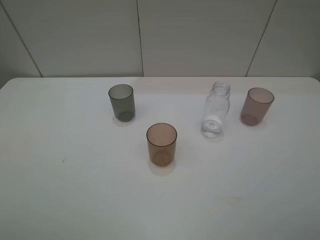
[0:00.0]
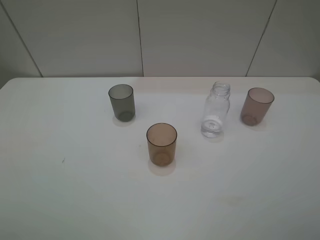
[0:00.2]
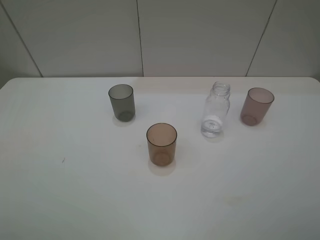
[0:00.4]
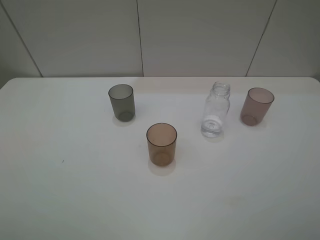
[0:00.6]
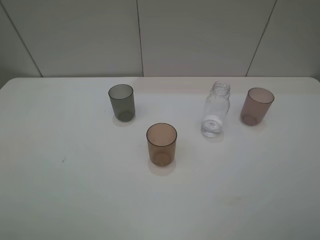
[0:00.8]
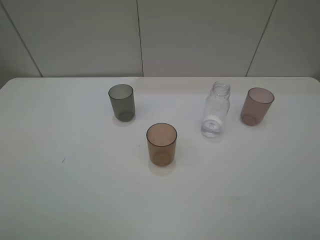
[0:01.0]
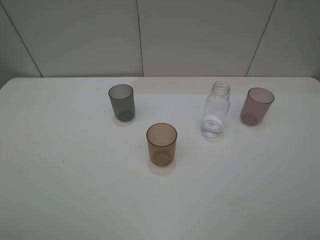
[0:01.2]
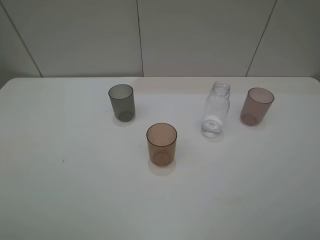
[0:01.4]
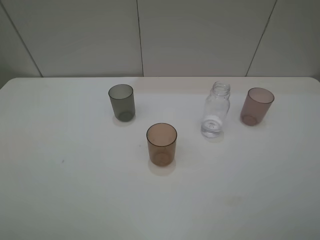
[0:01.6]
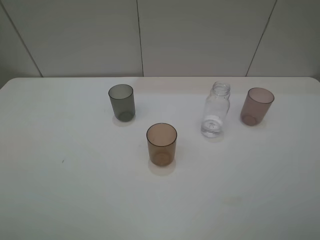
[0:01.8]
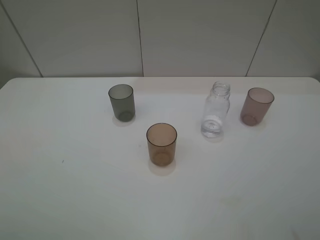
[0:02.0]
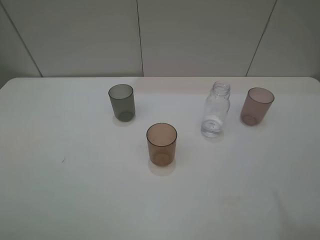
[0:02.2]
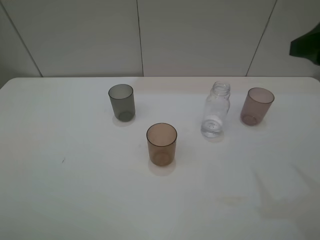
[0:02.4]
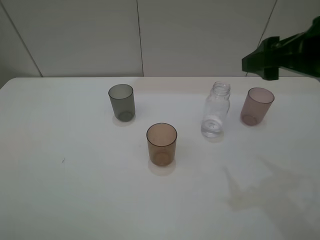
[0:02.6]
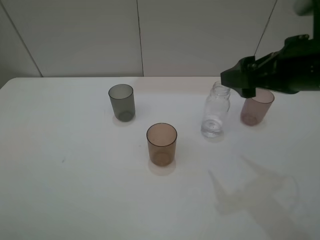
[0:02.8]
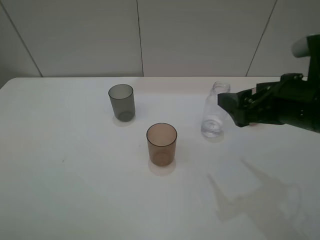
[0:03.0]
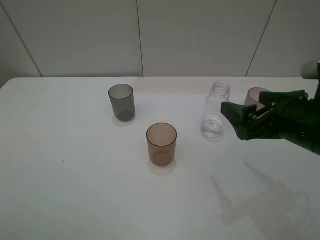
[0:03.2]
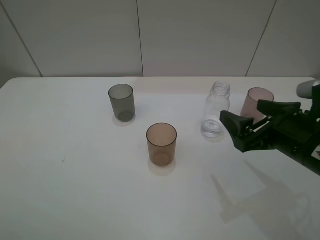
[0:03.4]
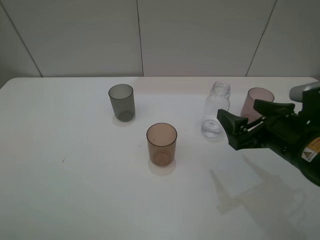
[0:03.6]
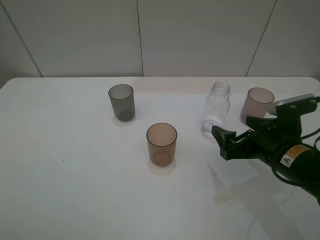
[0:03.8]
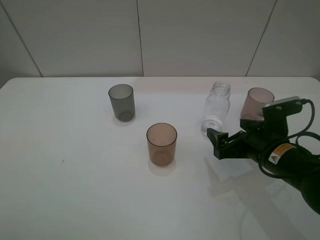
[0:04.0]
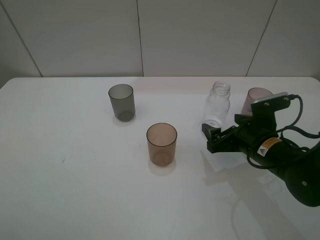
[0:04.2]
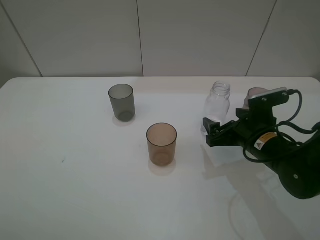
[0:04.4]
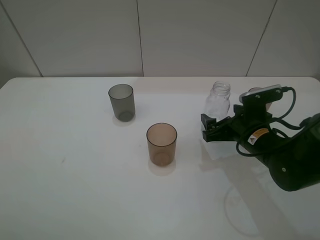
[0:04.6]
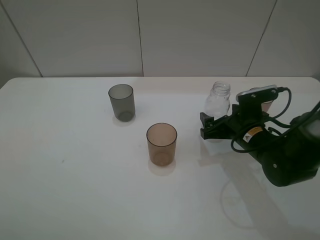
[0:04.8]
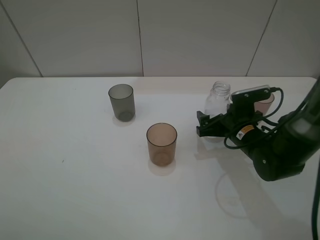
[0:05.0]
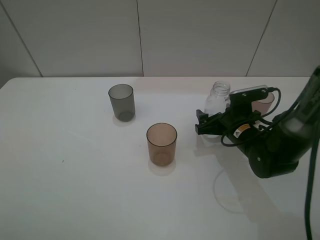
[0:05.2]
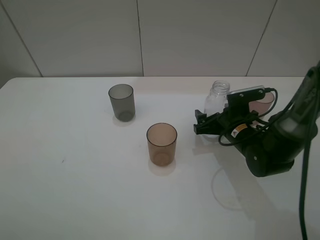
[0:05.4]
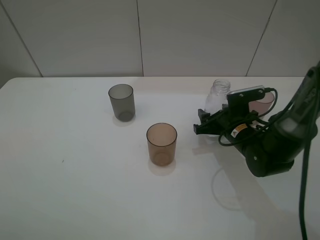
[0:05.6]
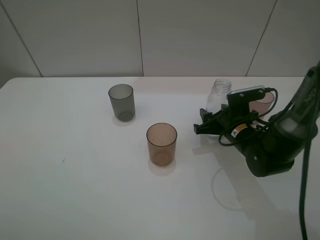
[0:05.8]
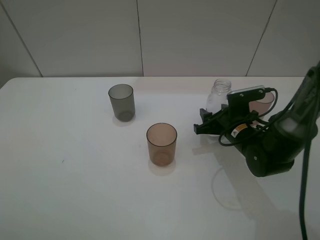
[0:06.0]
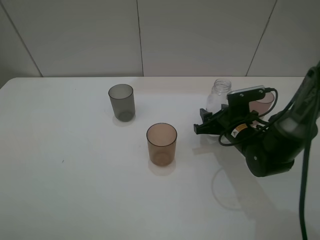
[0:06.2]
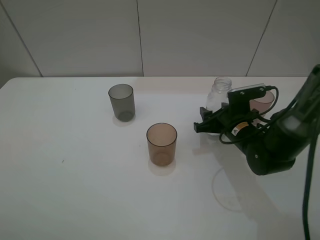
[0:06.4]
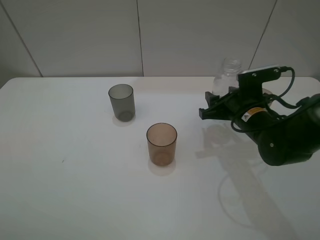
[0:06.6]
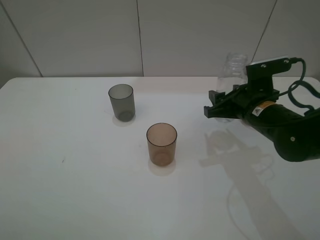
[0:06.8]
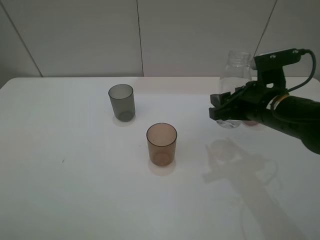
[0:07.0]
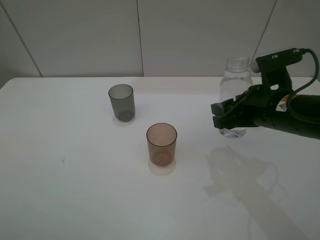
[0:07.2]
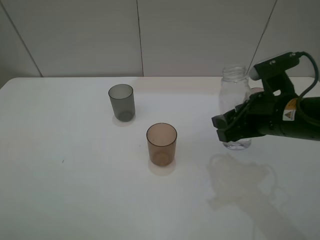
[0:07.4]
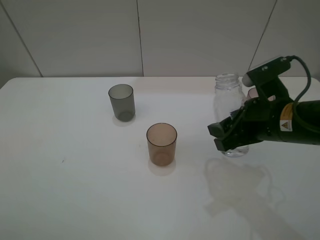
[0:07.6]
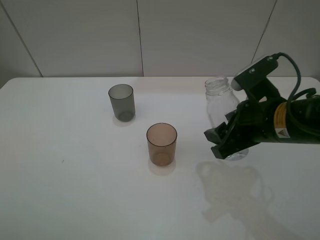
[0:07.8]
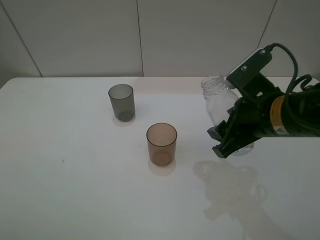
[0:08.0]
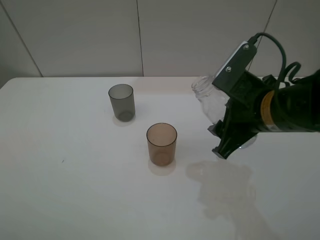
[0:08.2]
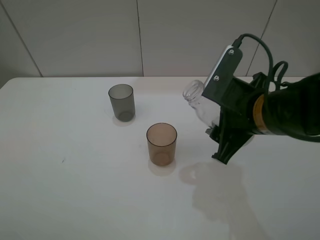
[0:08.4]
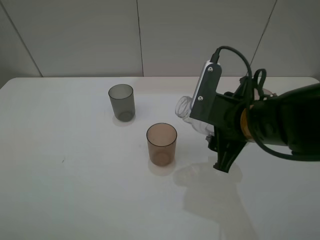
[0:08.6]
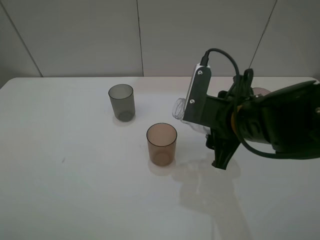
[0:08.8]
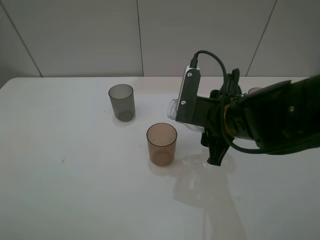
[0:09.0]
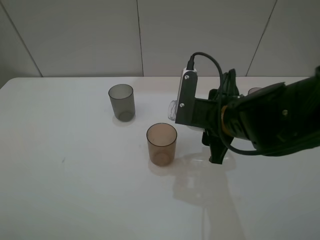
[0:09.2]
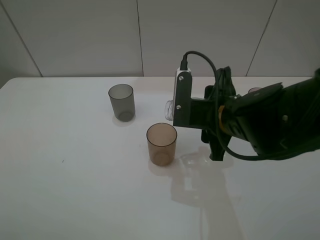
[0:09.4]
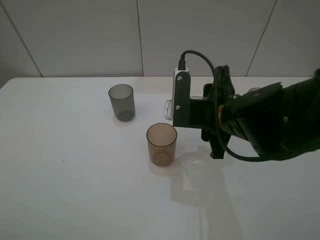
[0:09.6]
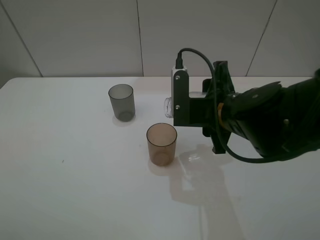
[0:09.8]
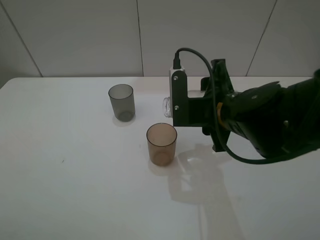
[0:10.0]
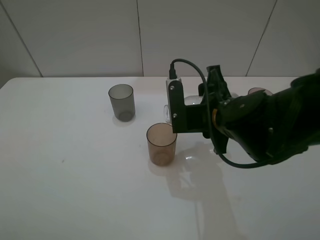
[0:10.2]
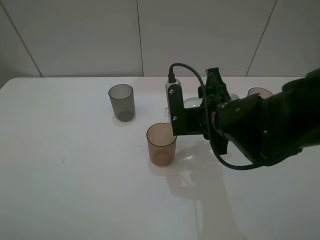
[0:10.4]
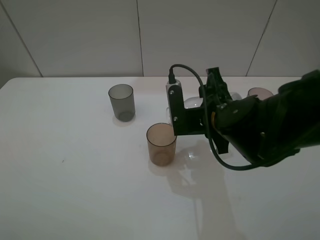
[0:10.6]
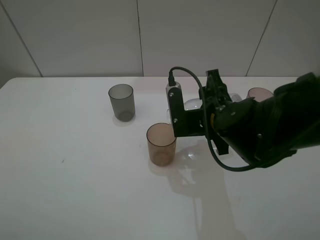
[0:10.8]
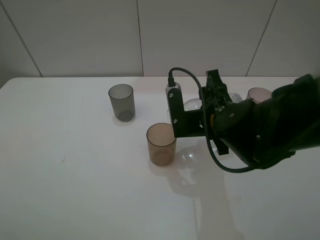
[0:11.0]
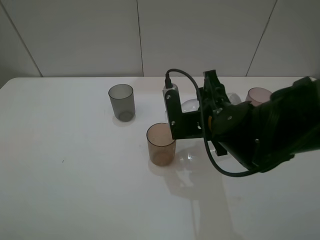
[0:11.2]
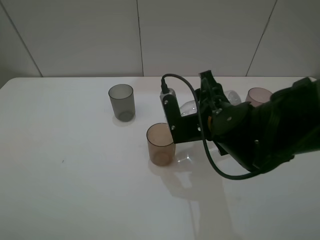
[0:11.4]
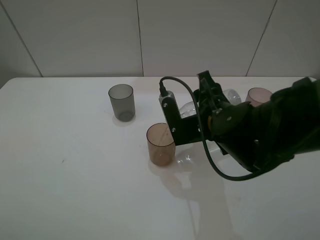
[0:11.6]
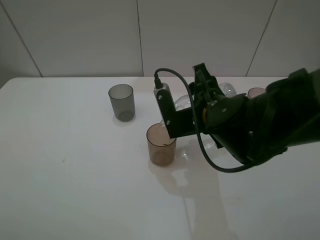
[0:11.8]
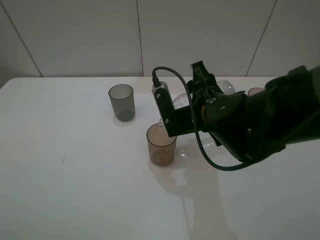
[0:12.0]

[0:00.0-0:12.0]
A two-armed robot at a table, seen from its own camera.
Task of the whole recording: pick up the bottle filled with water and pour water into the middle cup of the three cups.
Step, 0:00.0 to 0:06.0: Grasp the transparent bottle with the right gripper.
Step, 0:06.2 to 0:11.6: Pour water from transparent bottle tobrown cup with the right gripper.
0:00.0 to 0:01.6: Both grippers stay put.
0:01.6 to 0:03.0: The right gripper goes some 20 cm forward, to the left and downward.
0:03.0 to 0:04.4: The right gripper goes about 15 cm downward and forward.
0:04.4 to 0:06.0: The right gripper heads forward, covering approximately 5 cm, and closes up.
0:06.0 to 0:07.6: The right gripper is displaced upward and backward by roughly 15 cm.
0:07.6 to 0:09.0: The right gripper goes approximately 5 cm to the left.
0:10.4 to 0:12.0: The grippers move only a little.

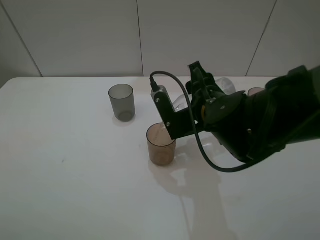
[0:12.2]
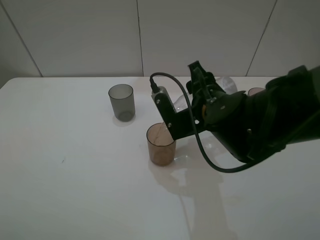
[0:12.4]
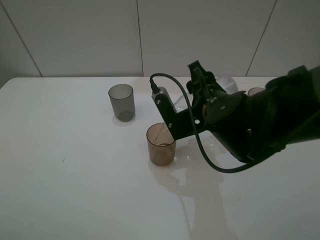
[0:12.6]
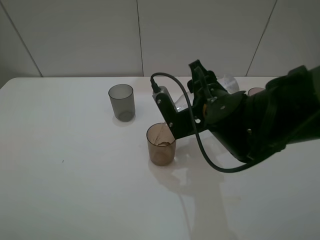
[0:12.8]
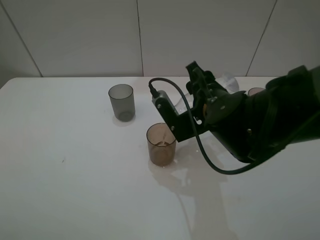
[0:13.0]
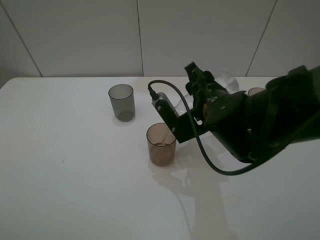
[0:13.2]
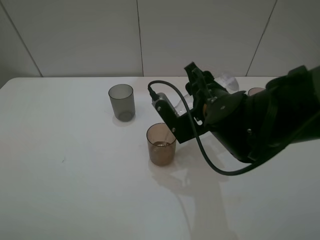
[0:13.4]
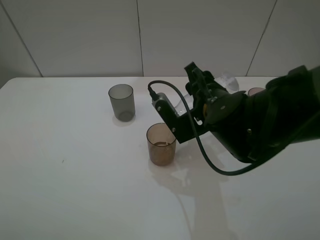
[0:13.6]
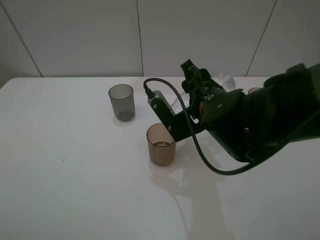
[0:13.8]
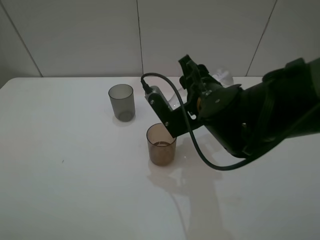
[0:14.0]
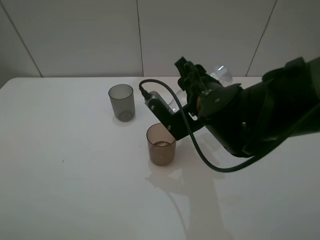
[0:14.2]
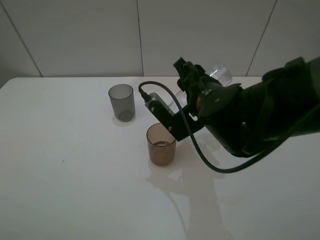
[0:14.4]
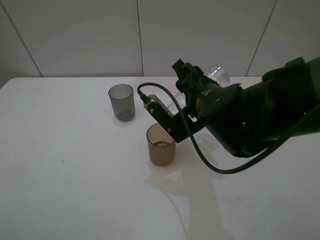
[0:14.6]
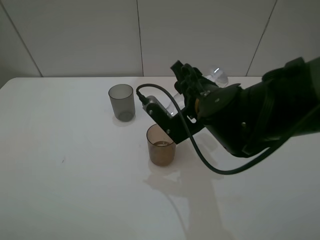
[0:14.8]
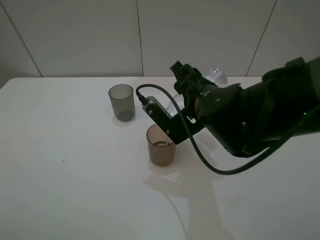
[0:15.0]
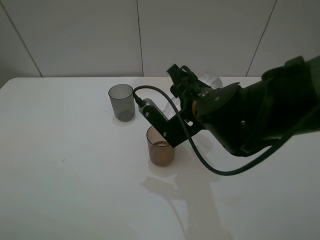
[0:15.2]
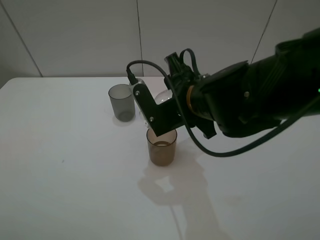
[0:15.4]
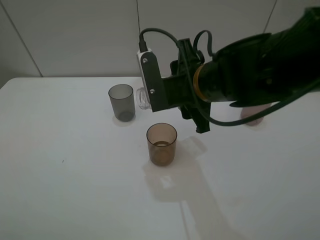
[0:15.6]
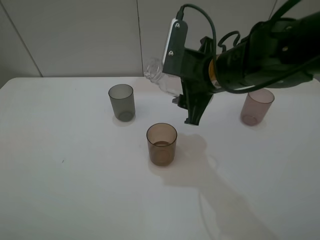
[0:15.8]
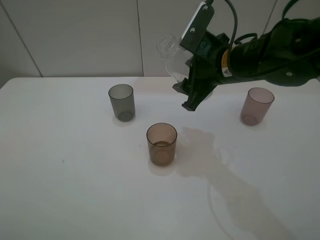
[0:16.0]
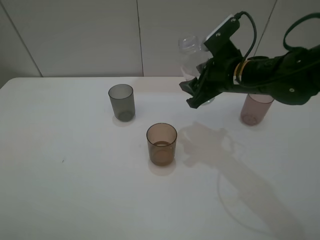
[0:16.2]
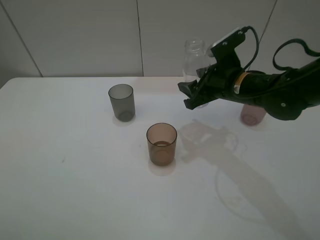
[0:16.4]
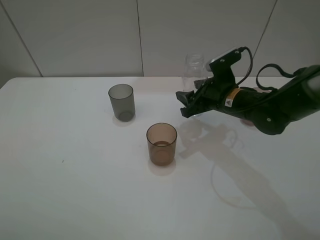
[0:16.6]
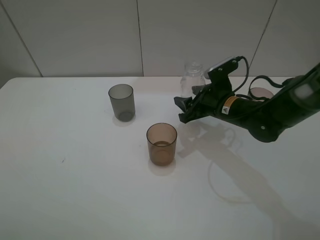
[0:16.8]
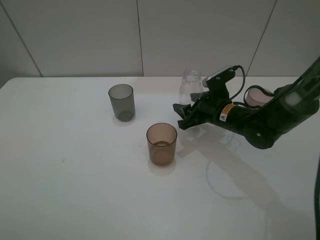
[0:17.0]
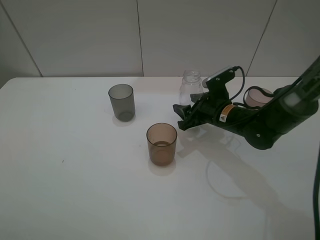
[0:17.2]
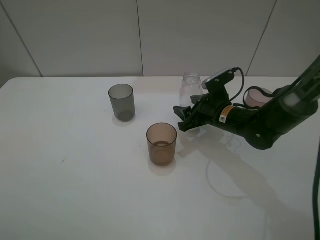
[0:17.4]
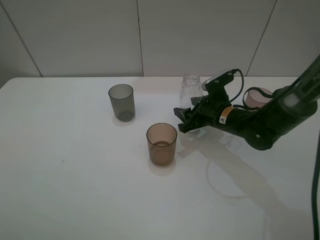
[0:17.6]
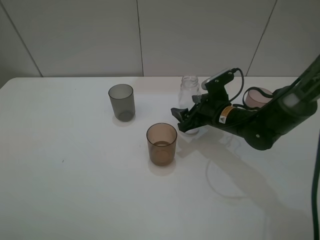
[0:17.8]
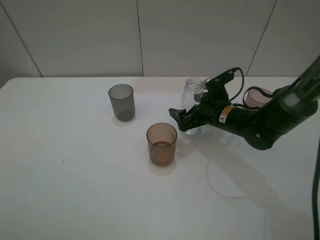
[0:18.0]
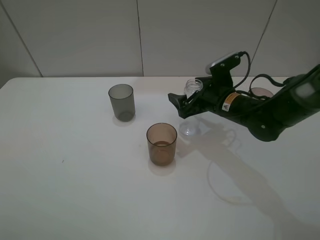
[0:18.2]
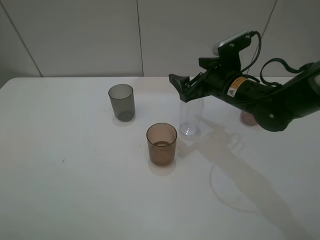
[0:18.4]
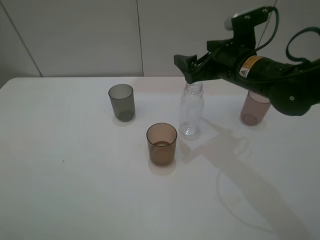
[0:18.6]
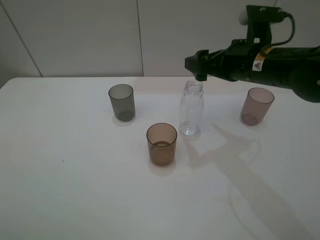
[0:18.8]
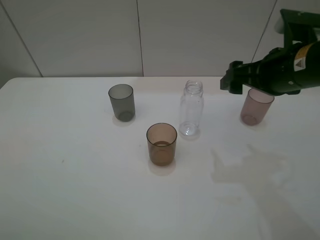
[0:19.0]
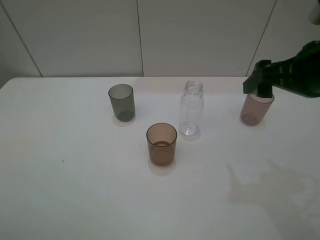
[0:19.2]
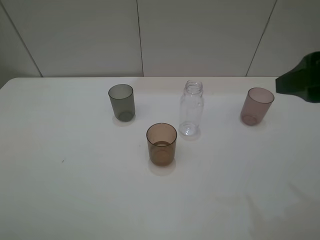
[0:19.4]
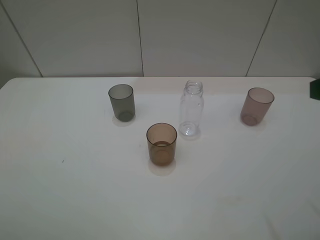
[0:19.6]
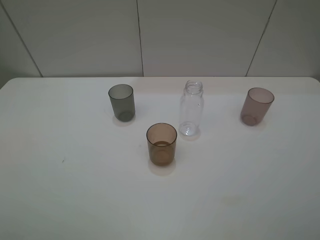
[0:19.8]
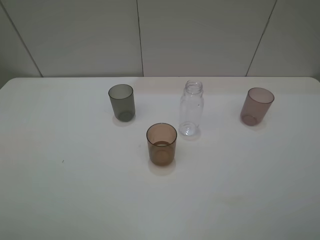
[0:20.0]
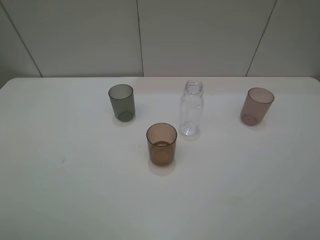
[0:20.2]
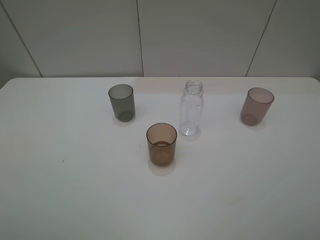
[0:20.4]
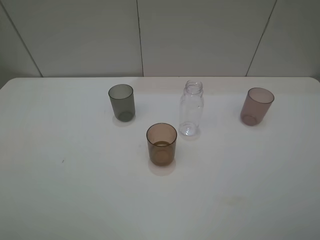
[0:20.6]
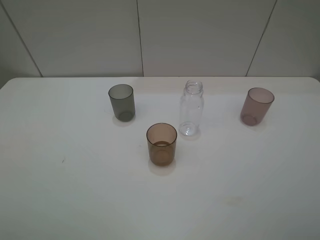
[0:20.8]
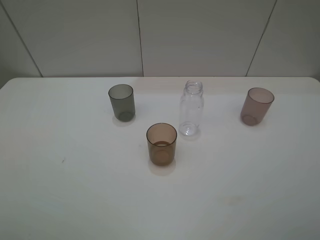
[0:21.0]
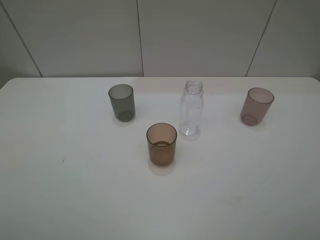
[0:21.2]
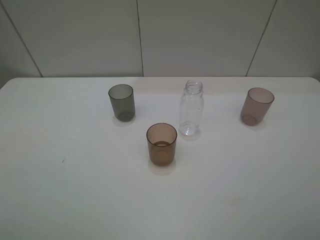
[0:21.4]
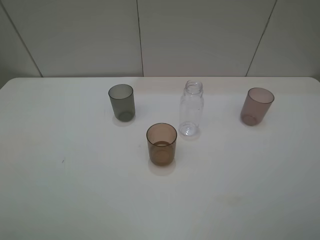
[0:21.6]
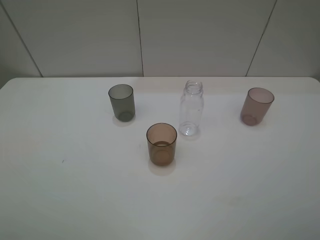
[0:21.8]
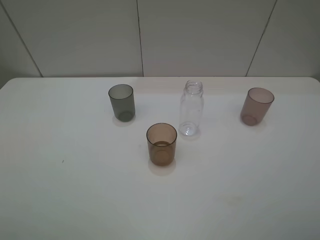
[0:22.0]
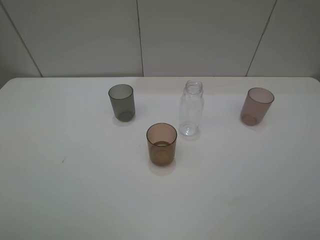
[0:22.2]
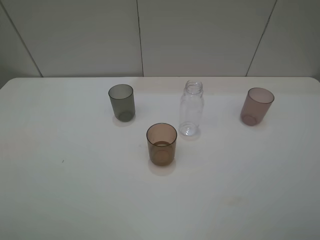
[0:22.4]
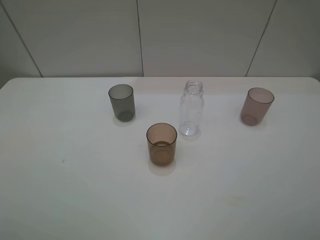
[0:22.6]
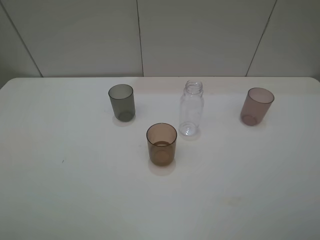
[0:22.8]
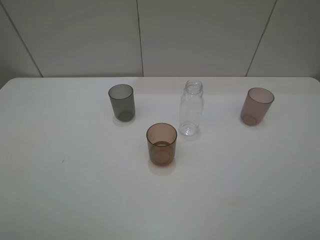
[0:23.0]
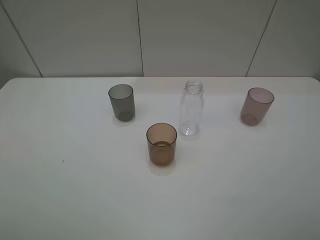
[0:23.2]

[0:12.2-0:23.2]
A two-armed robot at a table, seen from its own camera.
Task of the whole recording: pick up the bottle filled with water and pour water into the middle cup of the three cups.
Step, 0:12.2 to 0:19.0: Place the transparent bottle with the right gripper.
0:12.2 to 0:15.4: The grippers stay close to where they were, moving slightly.
0:15.4 to 0:17.0: The right gripper goes roughly 15 cm downward, to the right and forward.
0:17.0 to 0:18.4: The right gripper shifts about 10 cm upward, and opens.
0:18.4 to 0:20.0: The right gripper moves backward, upward and to the right, roughly 40 cm.
